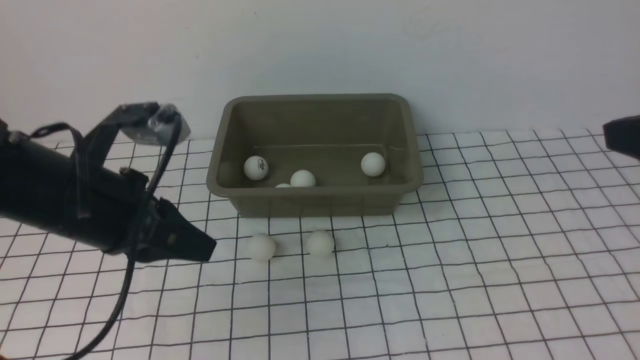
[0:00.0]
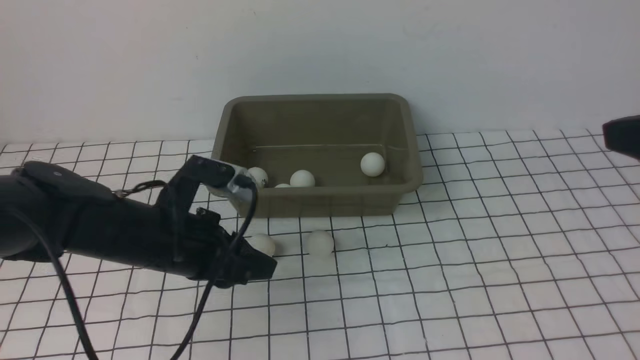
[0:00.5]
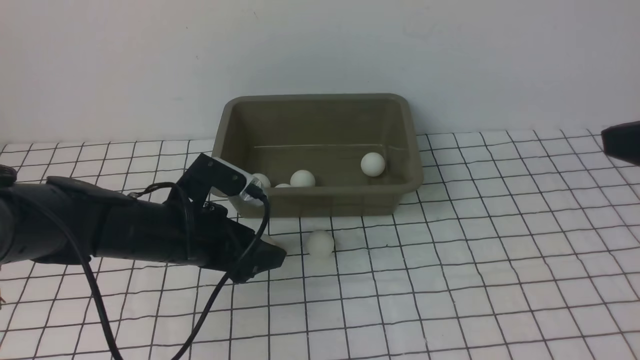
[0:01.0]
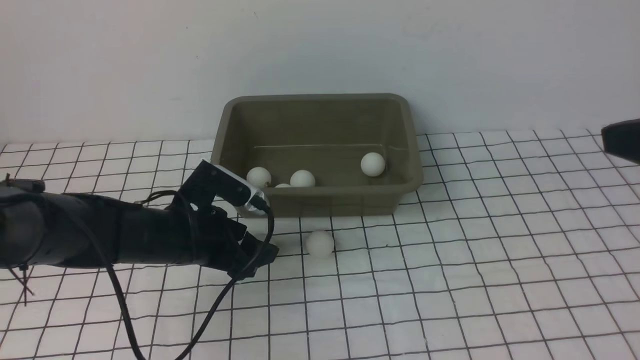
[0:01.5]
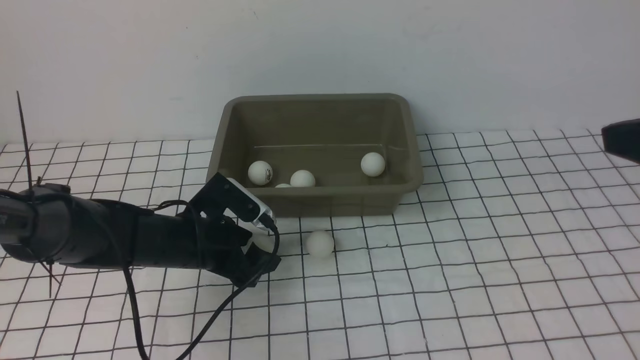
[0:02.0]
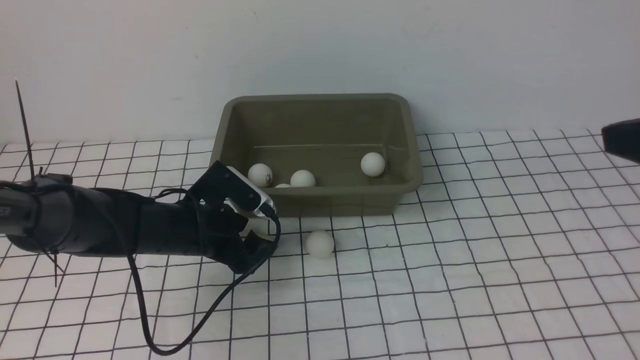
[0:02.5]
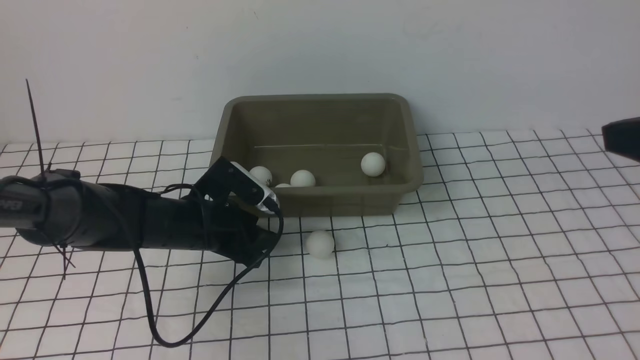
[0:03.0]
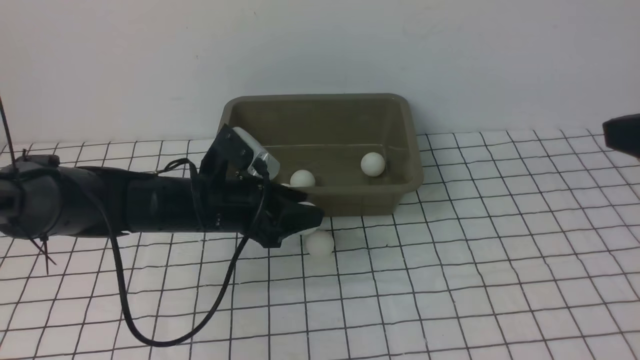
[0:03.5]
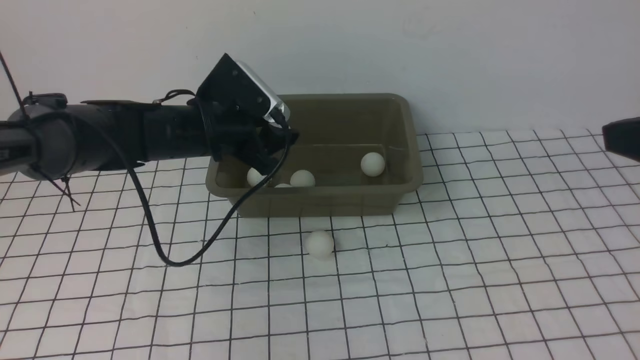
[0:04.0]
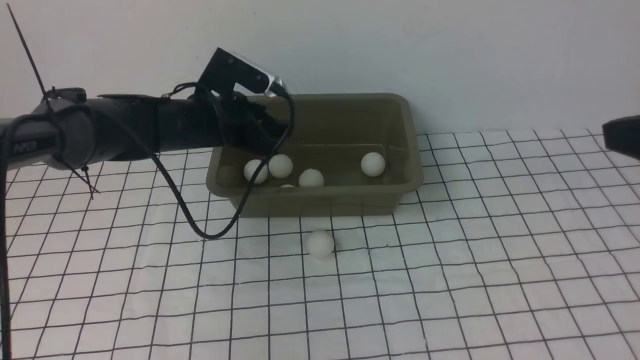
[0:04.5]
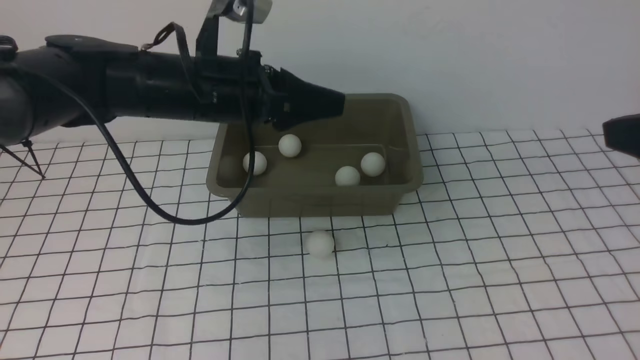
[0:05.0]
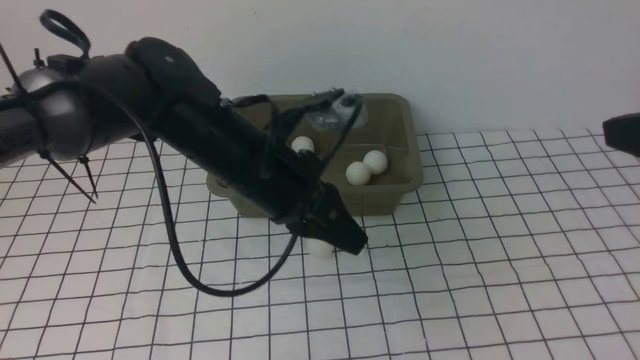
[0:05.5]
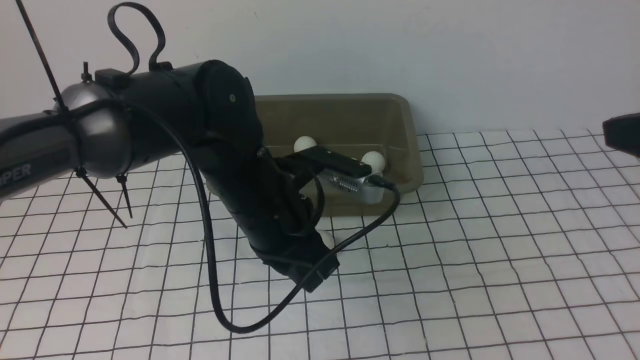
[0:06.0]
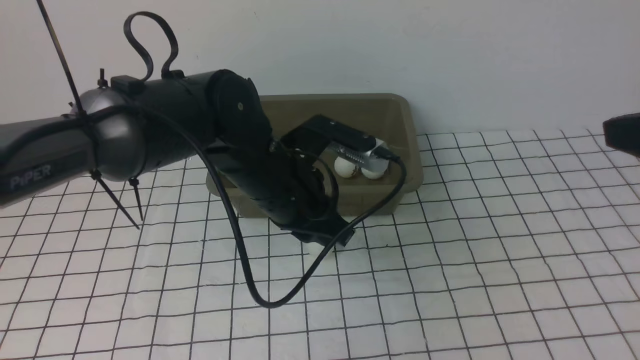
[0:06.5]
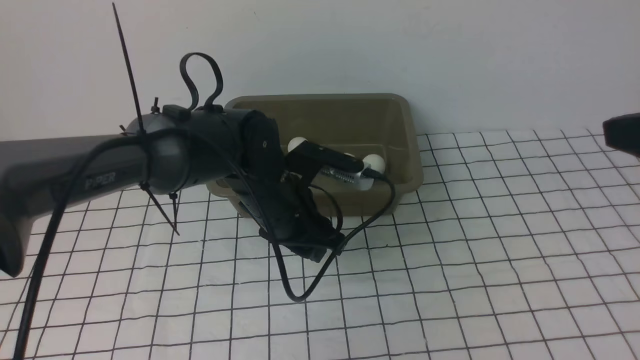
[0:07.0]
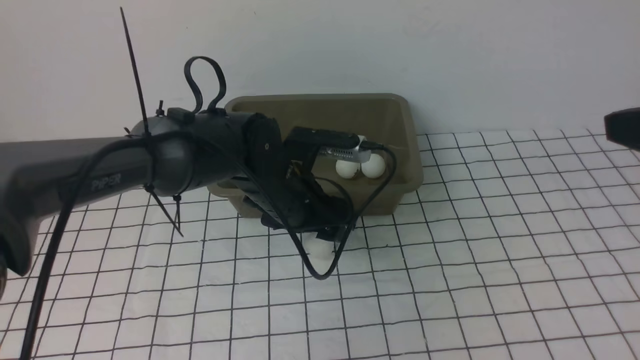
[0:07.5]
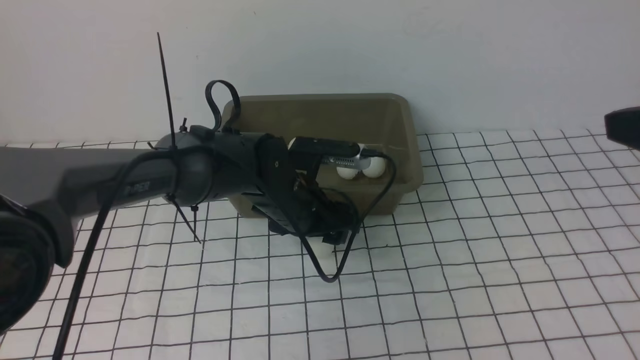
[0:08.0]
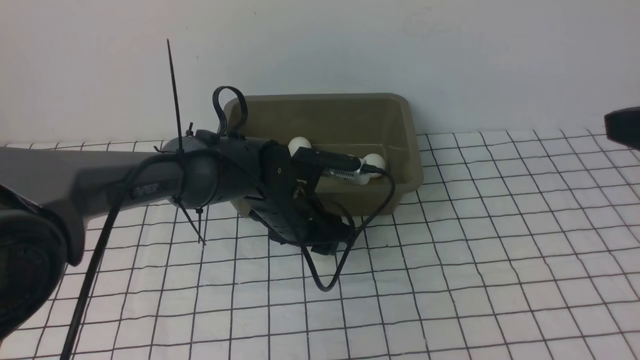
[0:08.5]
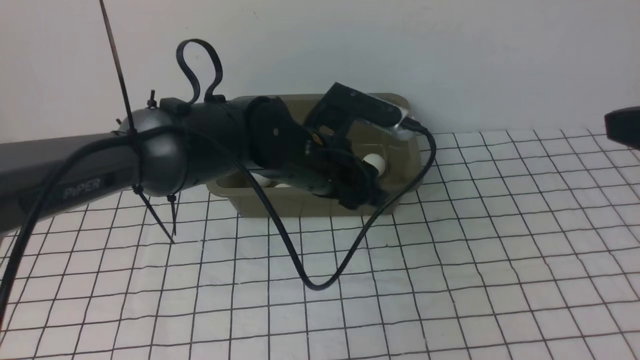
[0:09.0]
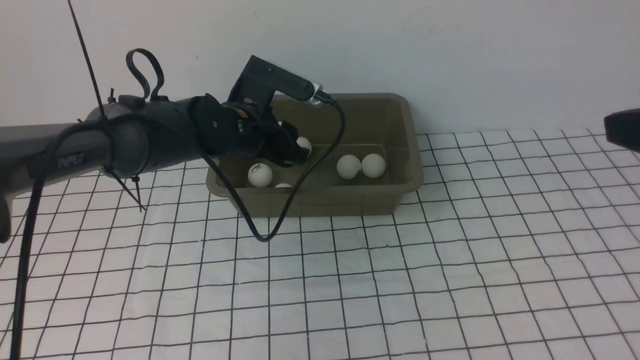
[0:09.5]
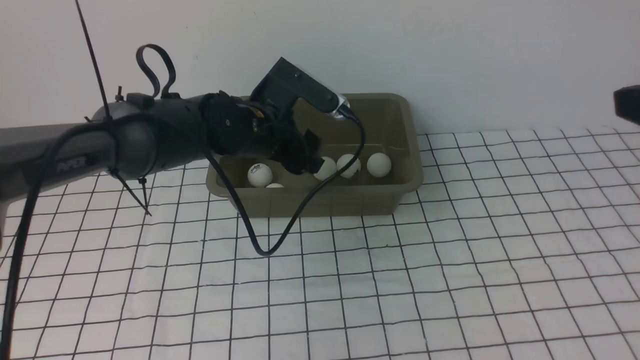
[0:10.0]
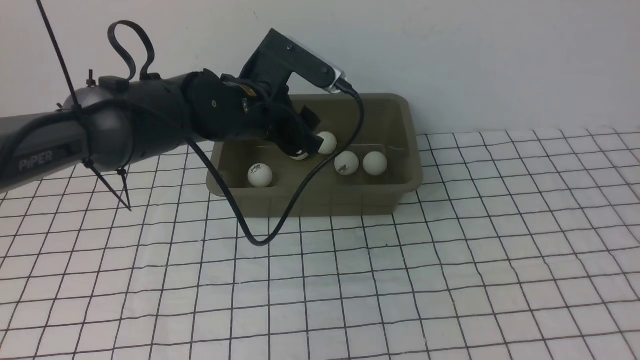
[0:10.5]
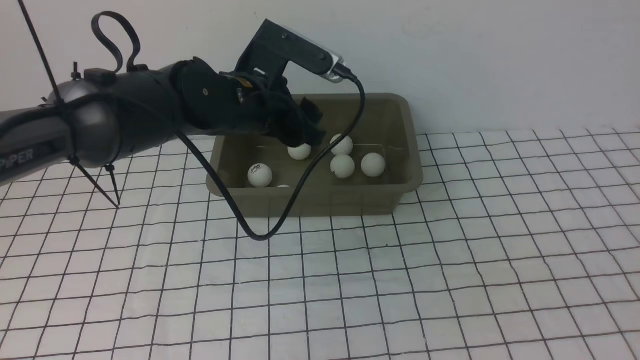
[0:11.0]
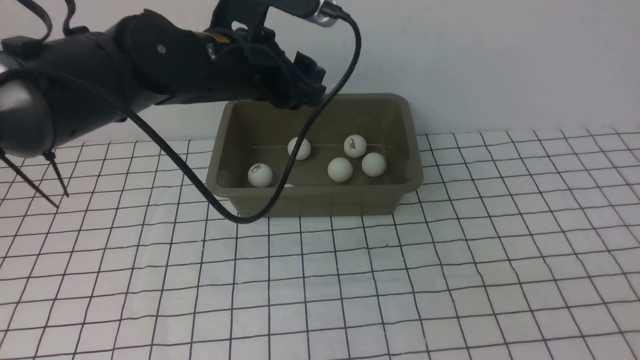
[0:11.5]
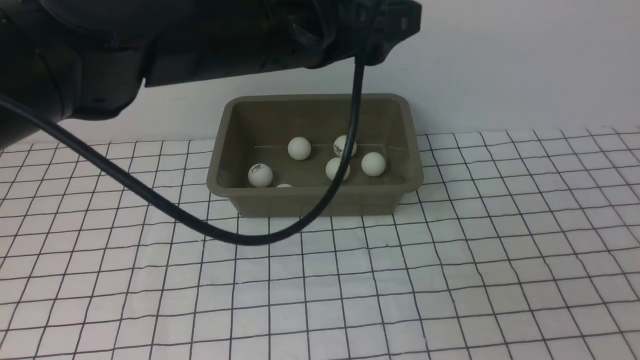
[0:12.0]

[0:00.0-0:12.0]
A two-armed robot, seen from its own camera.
Step, 0:00.0 to 0:03.5: use the left arm to clamp the table tennis ball closest to it.
Step, 0:04.0 to 0:04.5: use the left arm to put the table tennis ball into the box.
Step, 0:05.0 to 0:08.5: use the left arm to clamp the table tennis ball closest to it.
Step, 0:09.0 to 0:10.0: use the left arm to put the table tennis ball into the box.
0:00.0 to 0:02.0: The left gripper moves downward and forward, about 15 cm, and opens its fingers.
0:02.0 to 0:04.0: The left gripper goes roughly 15 cm forward and upward.
0:04.0 to 0:06.0: The left gripper moves backward and to the right, roughly 15 cm, and closes its fingers.
0:06.0 to 0:08.0: The left gripper travels downward by about 5 cm, and opens its fingers.
0:08.0 to 0:10.0: The left gripper goes roughly 10 cm upward and to the left; the right gripper shifts roughly 15 cm backward and downward.
0:10.0 to 0:12.0: The right gripper is displaced downward by about 5 cm. The left gripper shifts roughly 20 cm upward and backward.

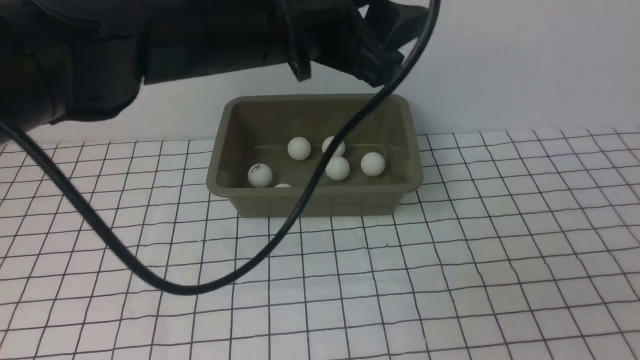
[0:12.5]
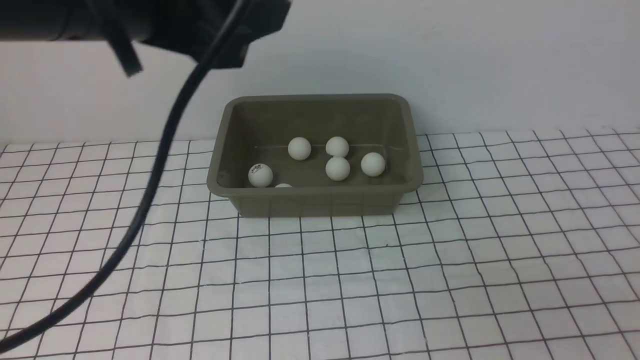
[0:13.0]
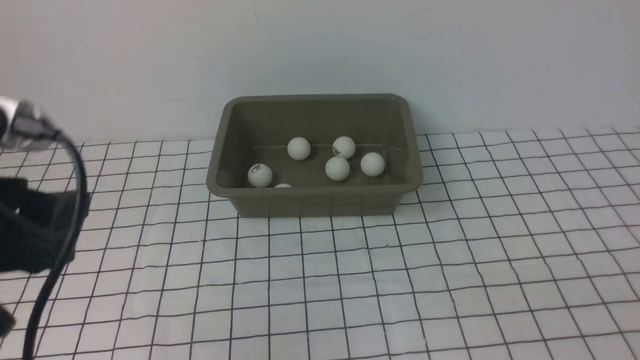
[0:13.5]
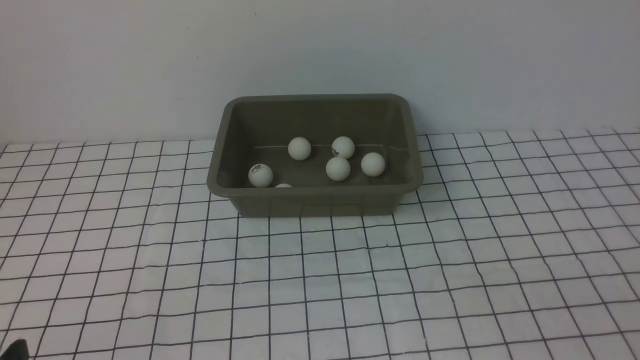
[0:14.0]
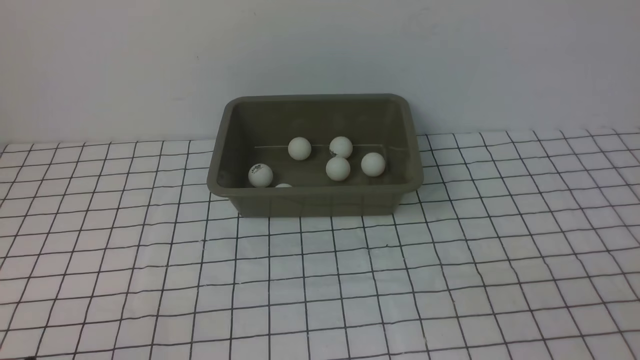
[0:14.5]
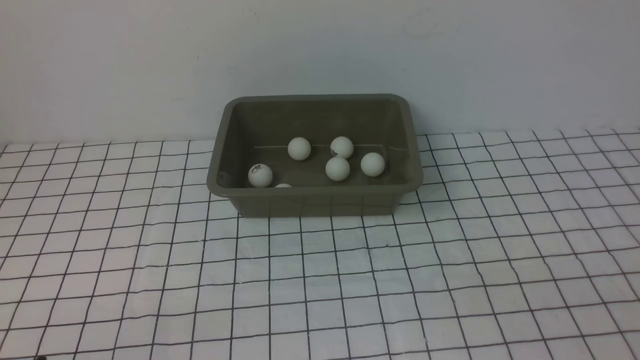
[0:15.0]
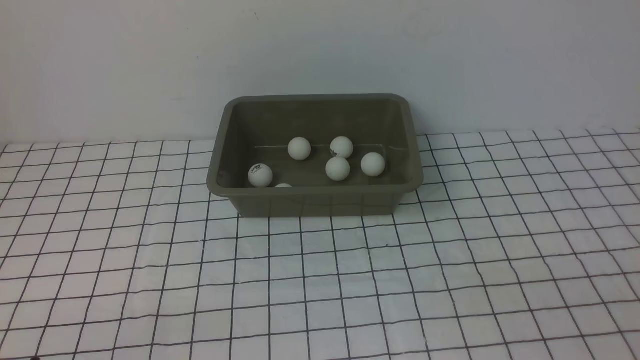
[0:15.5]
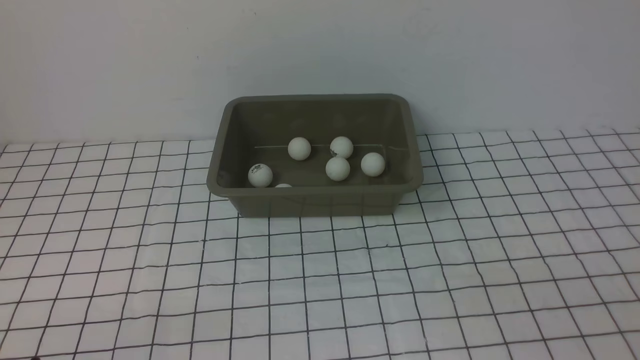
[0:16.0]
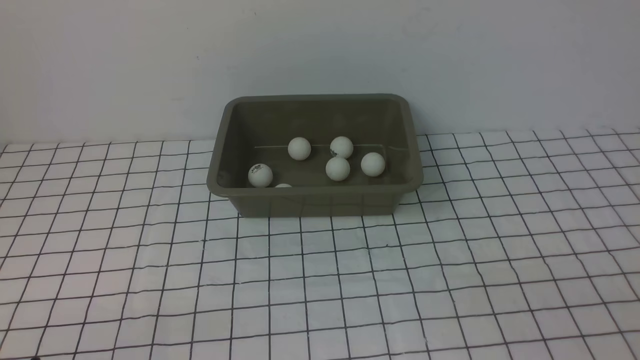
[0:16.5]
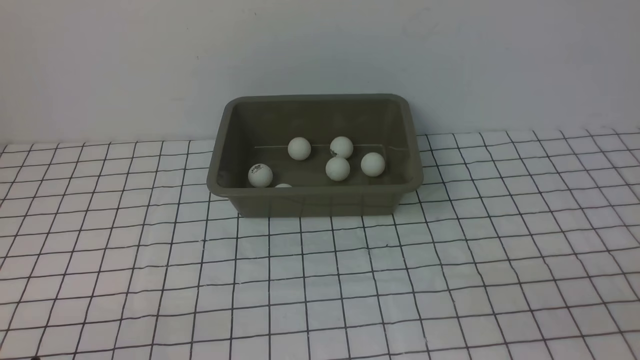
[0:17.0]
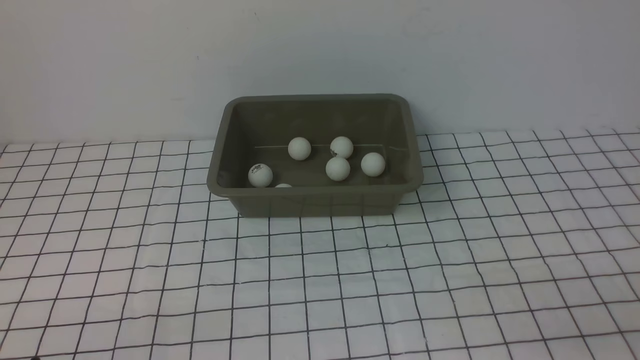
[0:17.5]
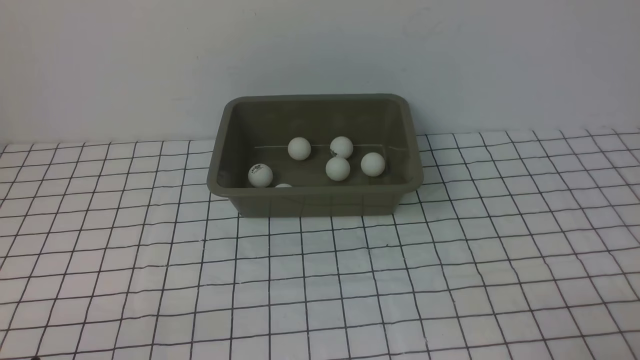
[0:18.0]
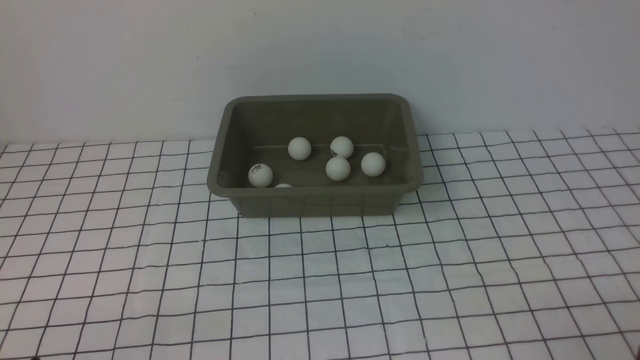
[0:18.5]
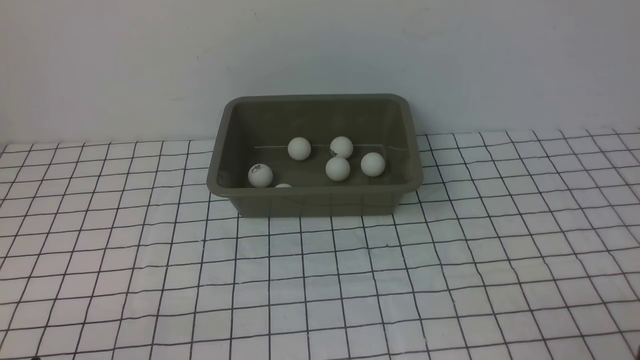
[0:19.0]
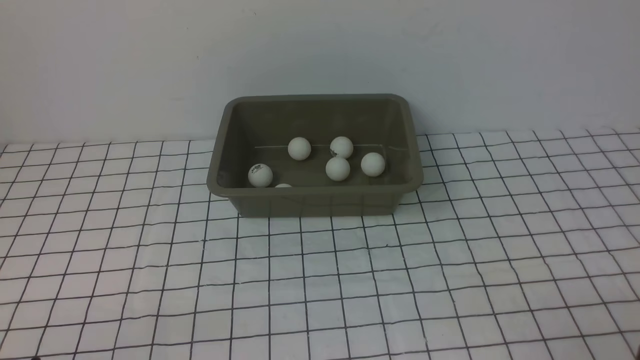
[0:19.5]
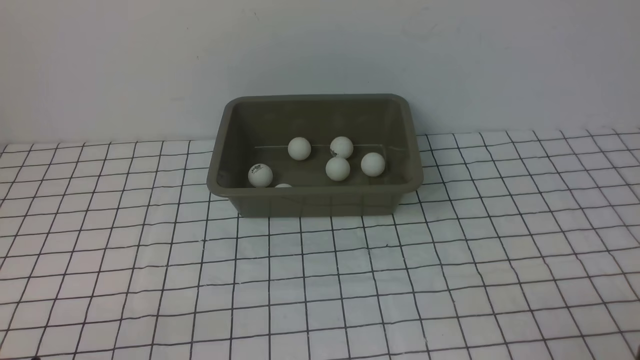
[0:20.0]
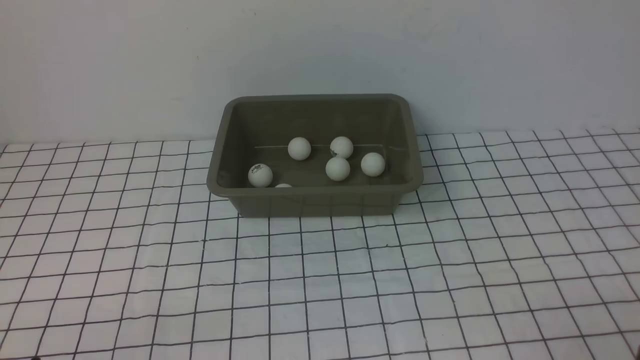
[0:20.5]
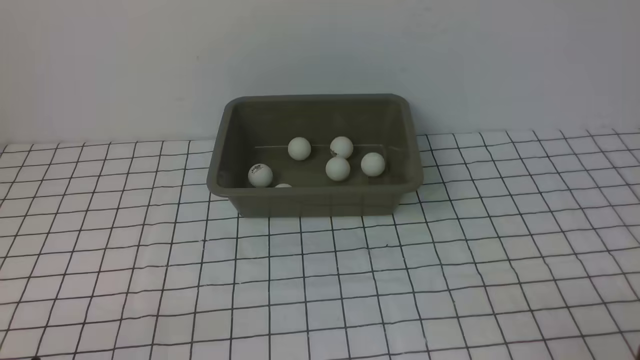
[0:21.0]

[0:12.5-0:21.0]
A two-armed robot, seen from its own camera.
0:12.5 to 0:14.5: The left gripper travels downward, backward and to the left by roughly 40 cm.
0:19.0 to 0:21.0: Both grippers stay about where they are.
